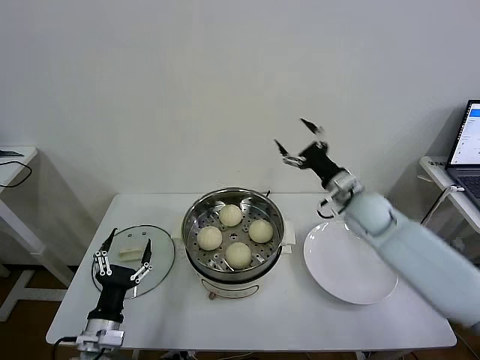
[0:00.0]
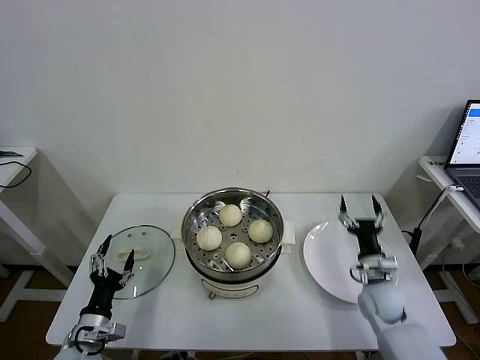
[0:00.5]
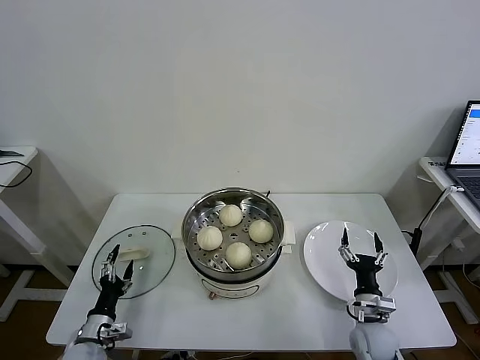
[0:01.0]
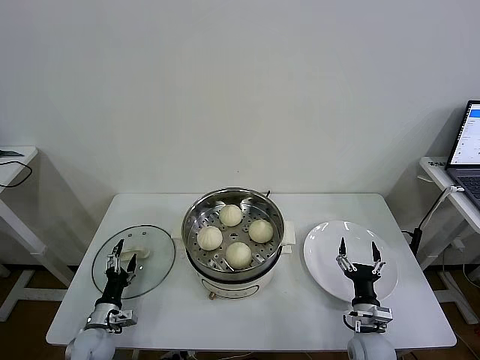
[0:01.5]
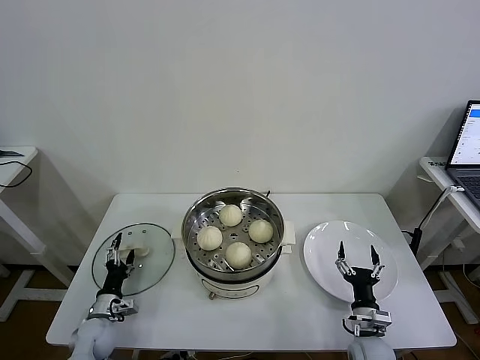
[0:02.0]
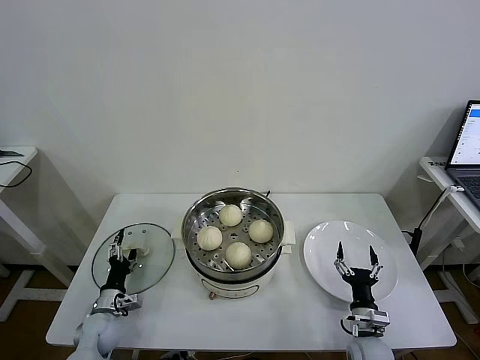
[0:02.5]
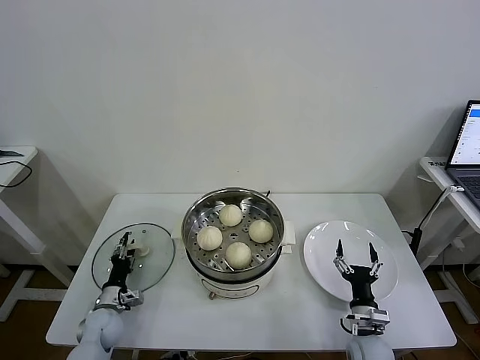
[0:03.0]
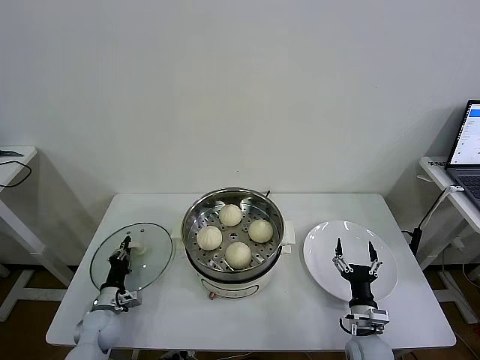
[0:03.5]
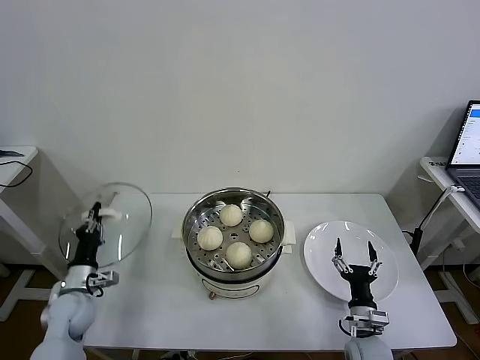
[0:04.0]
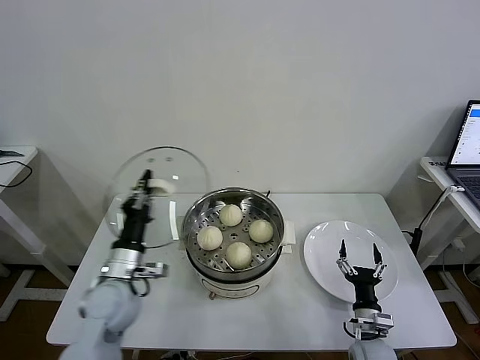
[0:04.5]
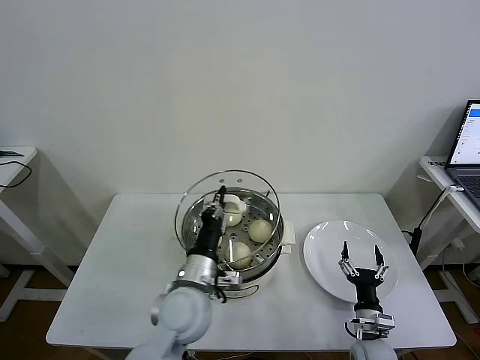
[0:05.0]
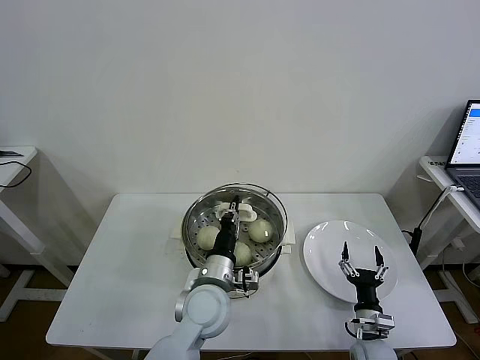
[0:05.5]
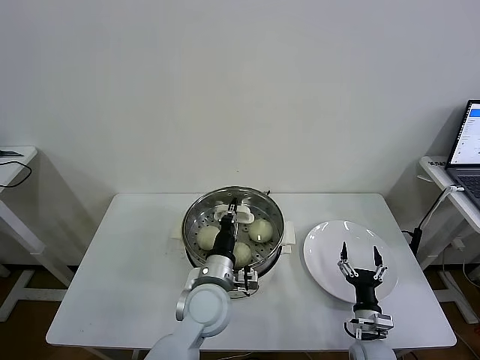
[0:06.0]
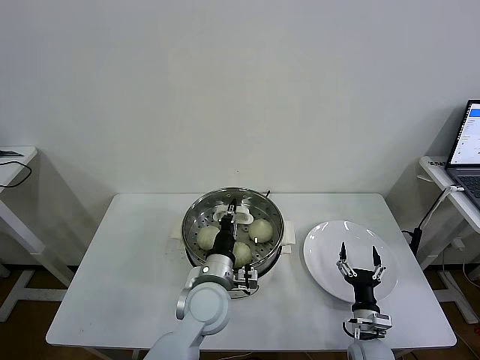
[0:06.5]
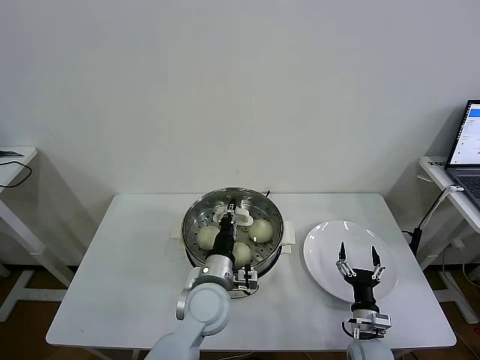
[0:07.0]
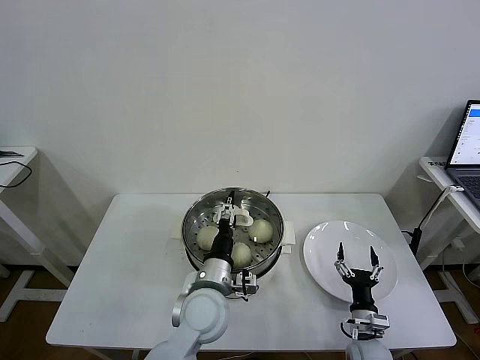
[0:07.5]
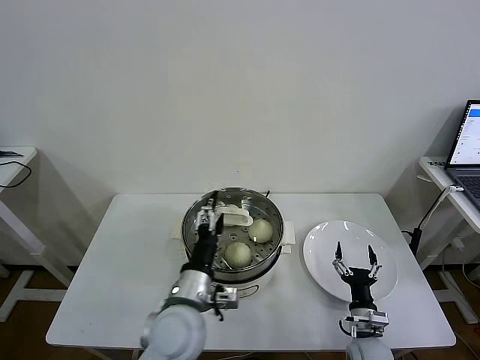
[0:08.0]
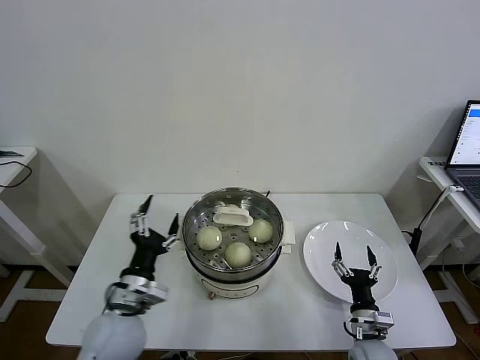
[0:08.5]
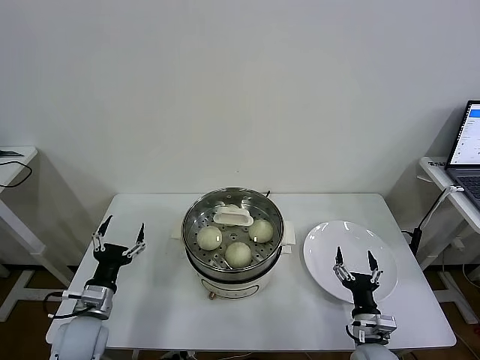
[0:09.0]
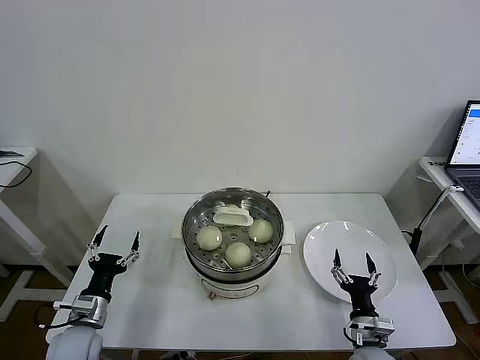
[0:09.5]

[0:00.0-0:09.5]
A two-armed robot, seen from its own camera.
Task of the whole recording: take steamed baozi put them in steamer then cover it.
Step, 0.0 to 3.5 s: Grasp the pot lid with left gripper.
Step, 4.0 to 7.5 s: Place the pot lid on the steamer with left gripper.
0.0 to 2.0 s: The left gripper travels downward, forward and to the left by roughly 20 cm. Meanwhile the right gripper heads downward and backward, covering approximately 35 cm.
2.0 to 4.0 s: The left gripper travels upward by some 10 cm, and closes up.
4.0 to 5.5 s: The left gripper goes roughly 30 cm to the right.
5.5 to 7.5 s: The left gripper opens.
7.5 to 9.5 s: The right gripper moves roughly 5 cm, while the left gripper is displaced to the left by roughly 25 cm.

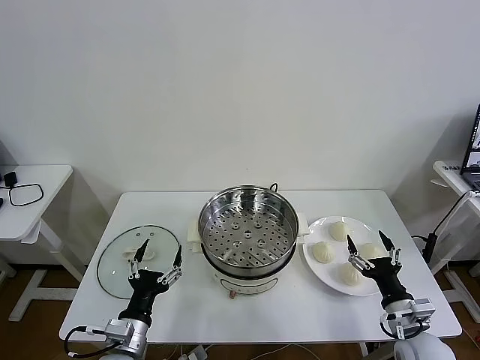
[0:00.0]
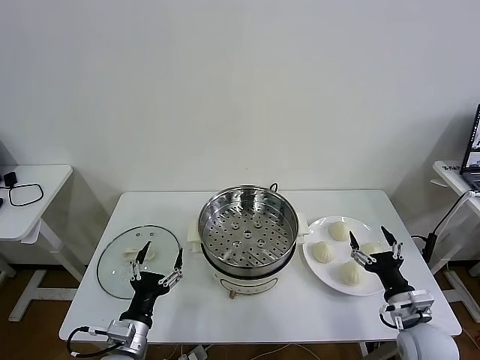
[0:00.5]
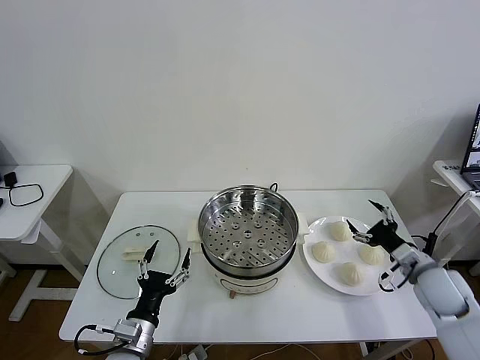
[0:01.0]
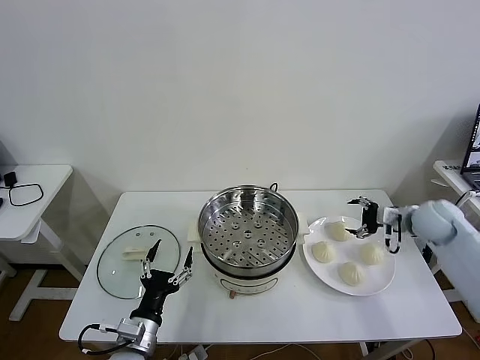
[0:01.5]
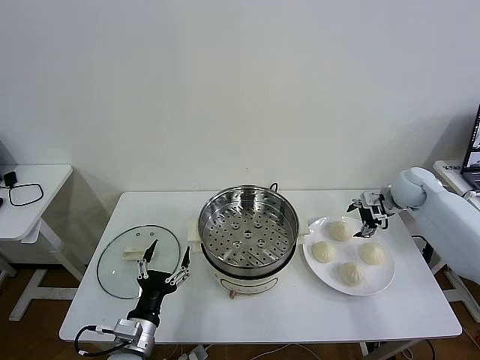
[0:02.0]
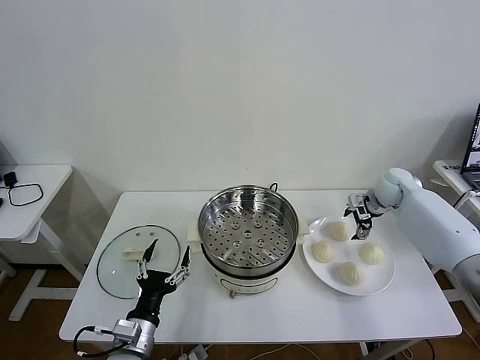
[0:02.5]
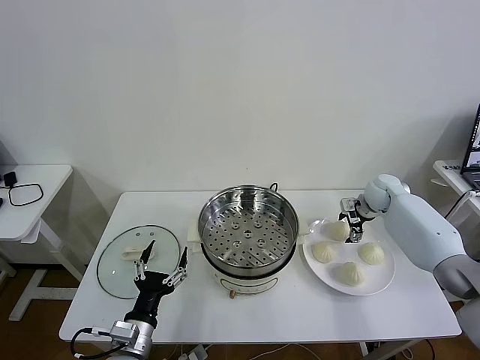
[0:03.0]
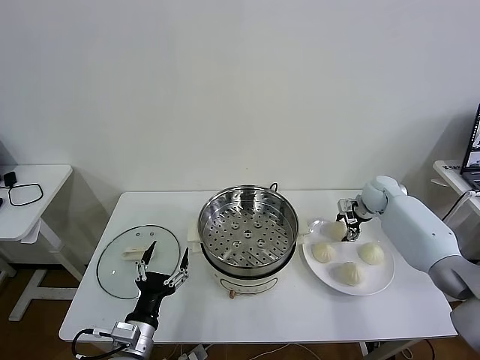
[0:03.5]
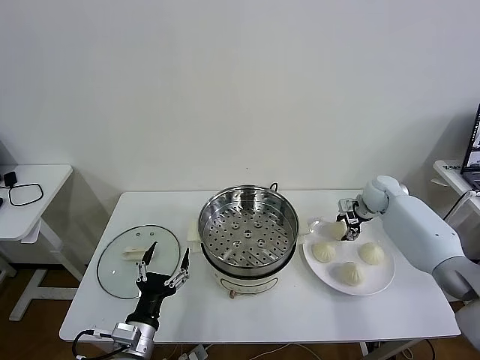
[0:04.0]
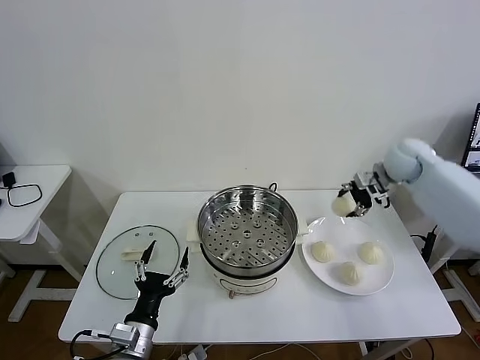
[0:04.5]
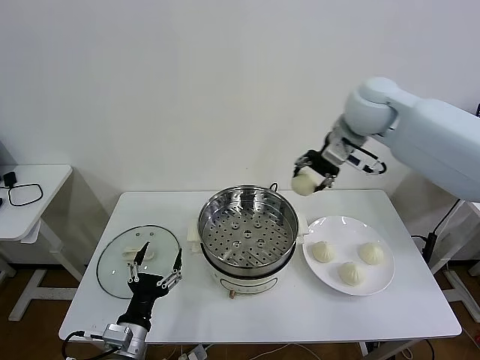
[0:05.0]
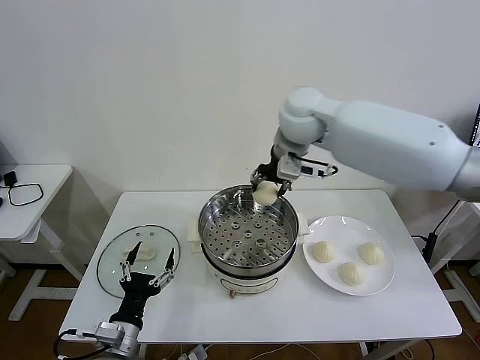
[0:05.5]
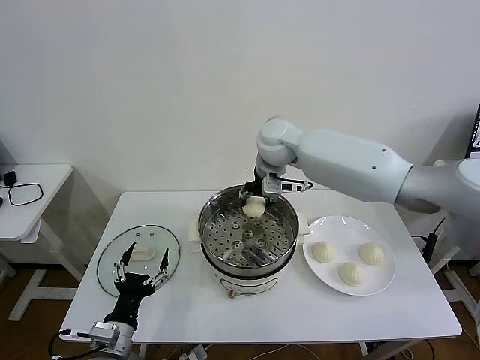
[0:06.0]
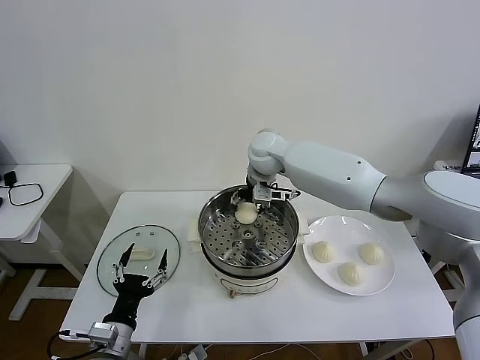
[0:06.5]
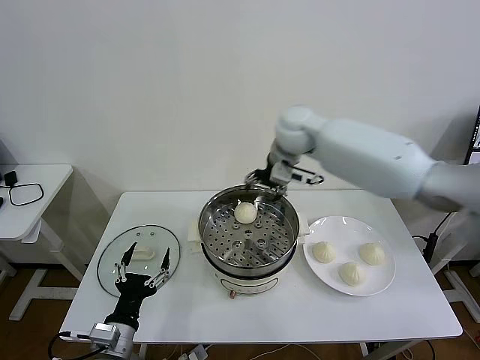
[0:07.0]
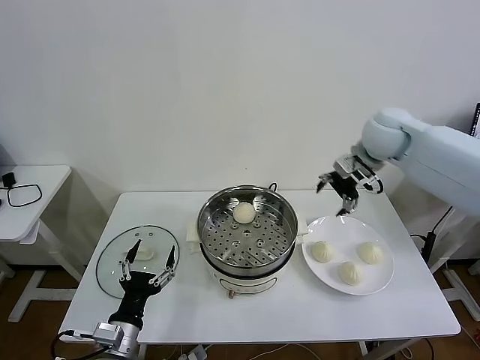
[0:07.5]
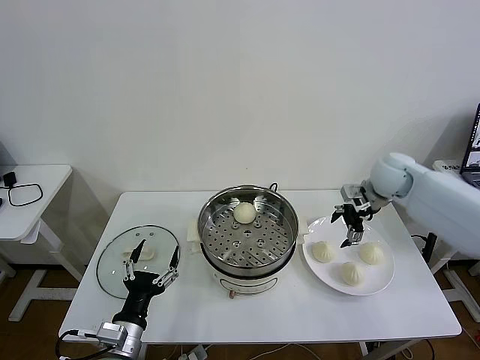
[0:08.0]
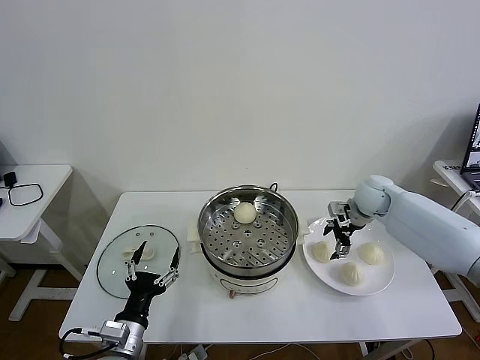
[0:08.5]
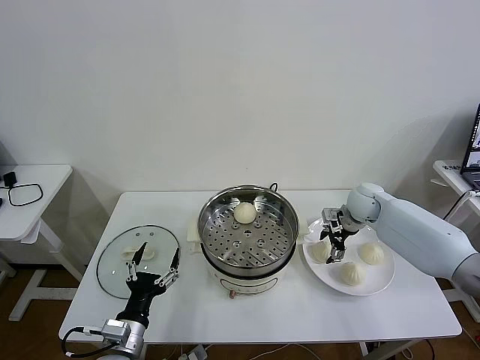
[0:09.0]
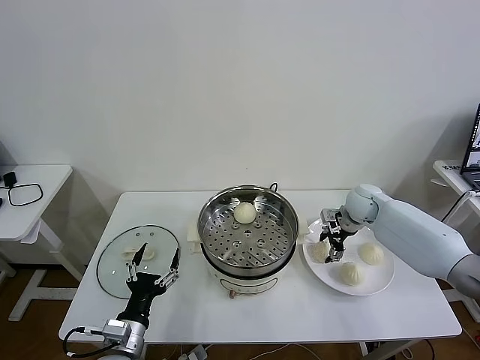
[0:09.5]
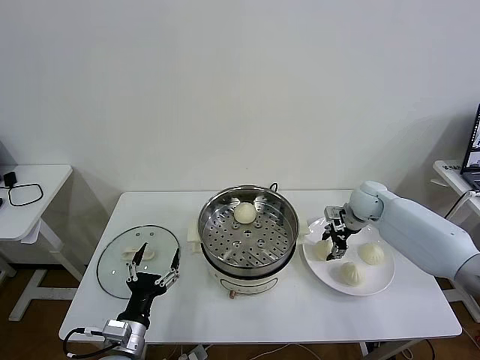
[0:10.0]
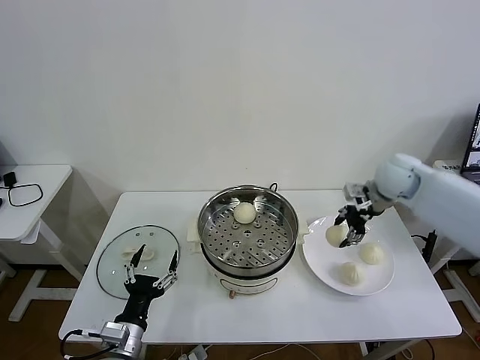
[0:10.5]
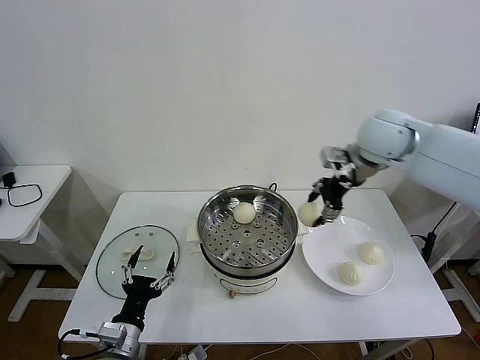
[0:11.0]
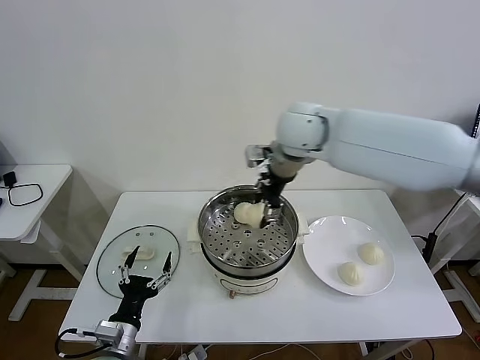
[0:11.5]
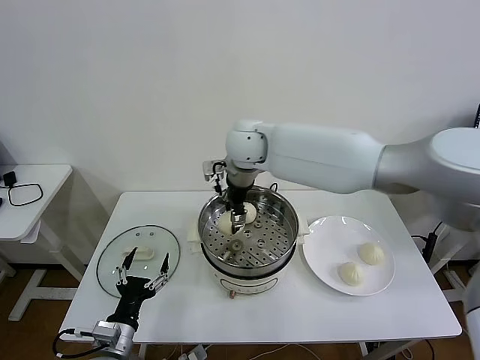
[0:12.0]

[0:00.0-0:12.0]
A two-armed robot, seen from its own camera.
Task of the whole recording: take steamed baozi put them in steamer then cover it.
Step, 0.0 to 3.5 s: Grasp the baozi in the plate with right gripper.
Step, 4.0 to 6.5 s: Place the baozi on the steamer with right gripper.
Step, 7.0 to 9.5 s: Grasp the baozi in the plate with right gripper.
2.0 to 4.0 s: The right gripper shifts by some 5 cm, and closes up.
4.0 to 6.0 s: The right gripper heads to the left and upward, covering roughly 35 cm.
6.0 to 8.0 s: The right gripper goes approximately 30 cm to the right, and opens.
8.0 to 10.0 s: The right gripper travels downward by about 5 cm, and closes.
10.0 to 12.0 s: The right gripper travels to the left and upward by approximately 40 cm.

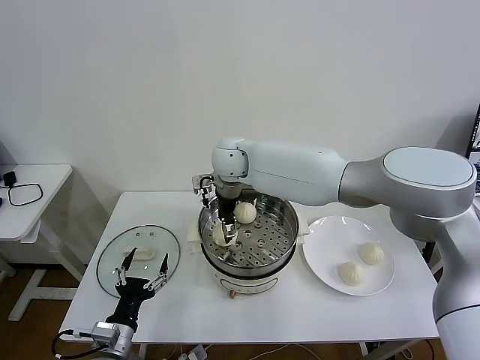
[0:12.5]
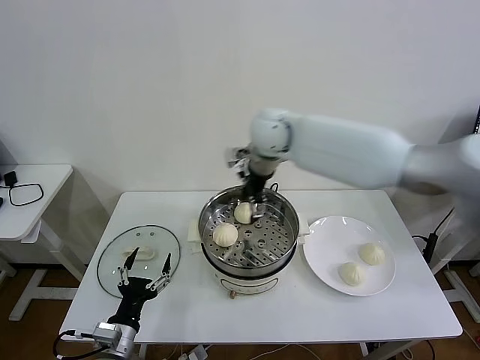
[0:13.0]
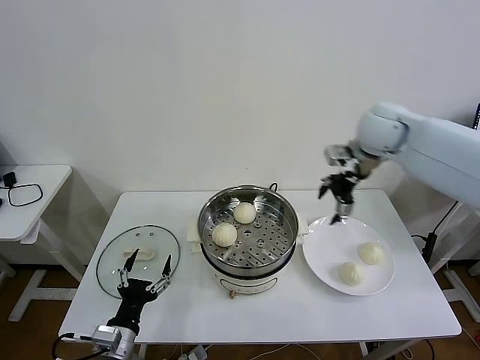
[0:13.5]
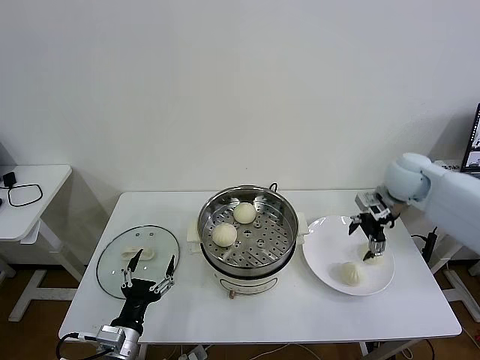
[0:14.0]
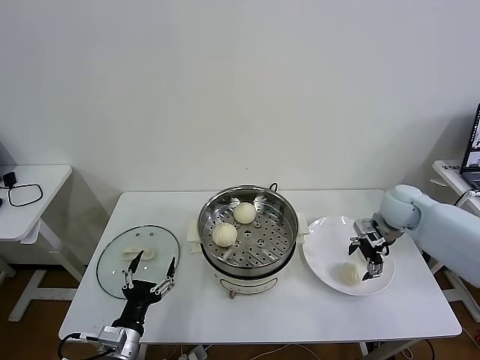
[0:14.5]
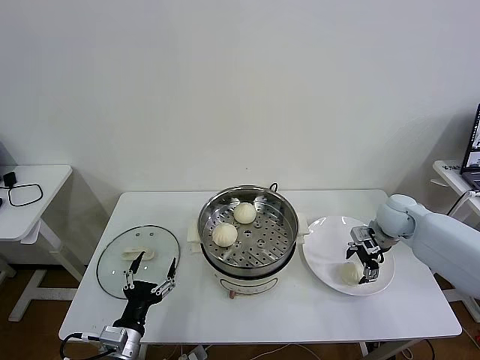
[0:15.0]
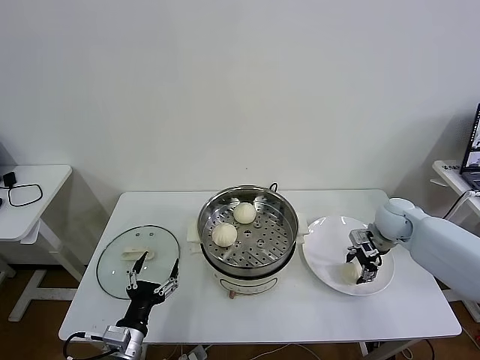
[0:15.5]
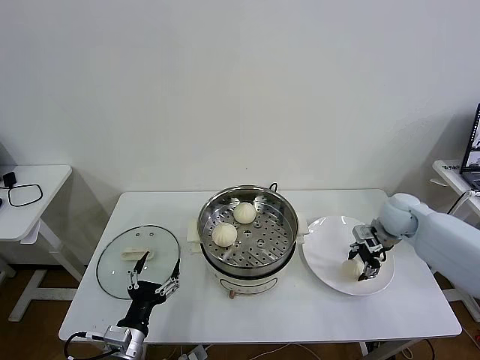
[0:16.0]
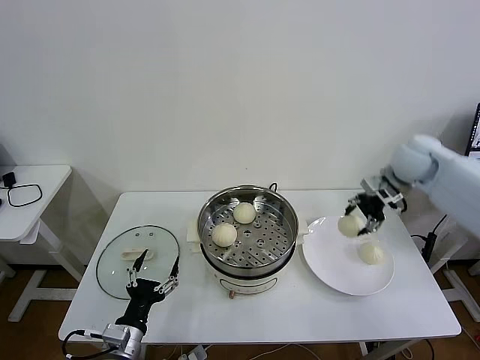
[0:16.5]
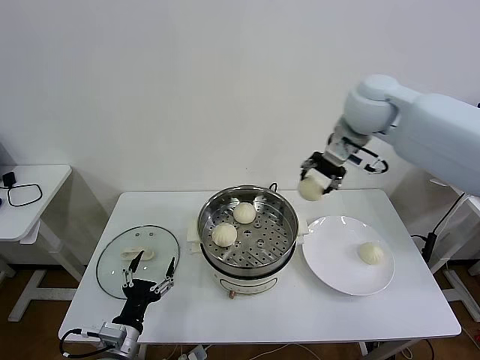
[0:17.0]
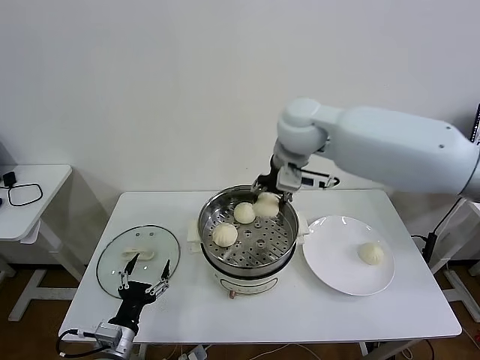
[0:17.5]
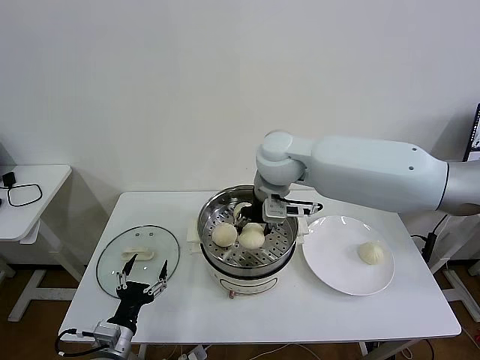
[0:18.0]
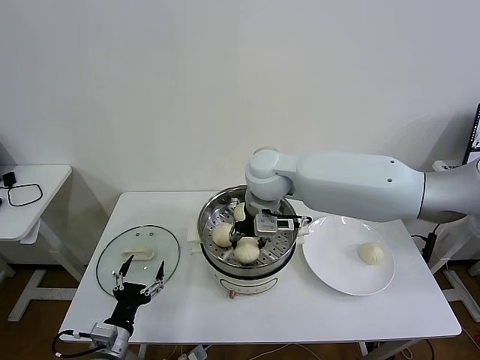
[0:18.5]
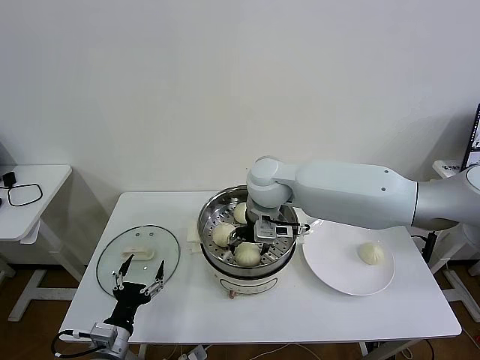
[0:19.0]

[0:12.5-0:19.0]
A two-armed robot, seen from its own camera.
Task of the whole recording: take steamed baozi put them in steamer then cover it.
Step, 13.0 to 15.5 s: Grasp the baozi in the plate with right gripper.
12.5 to 14.5 s: The right gripper goes some 40 cm to the right.
14.5 to 17.0 s: The right gripper goes roughly 30 cm upward and to the left, and closes.
17.0 to 19.0 s: The right gripper travels to the left and downward by roughly 20 cm, and opens its fingers.
